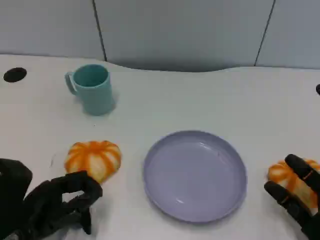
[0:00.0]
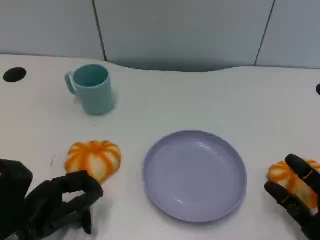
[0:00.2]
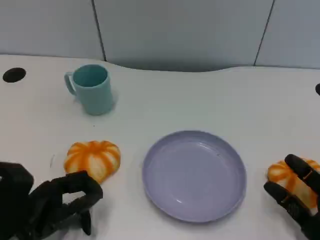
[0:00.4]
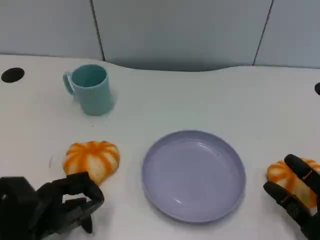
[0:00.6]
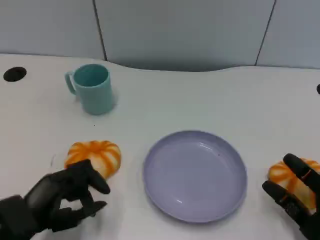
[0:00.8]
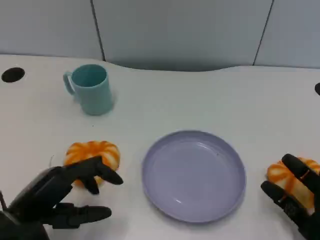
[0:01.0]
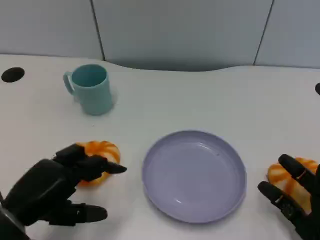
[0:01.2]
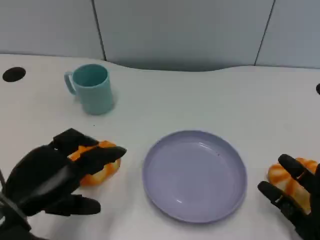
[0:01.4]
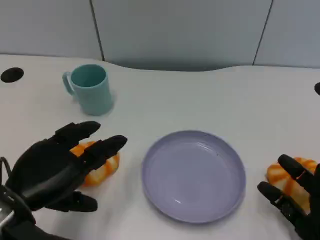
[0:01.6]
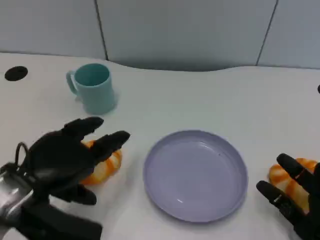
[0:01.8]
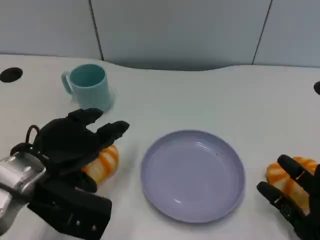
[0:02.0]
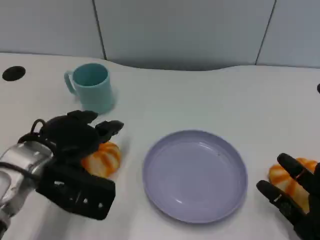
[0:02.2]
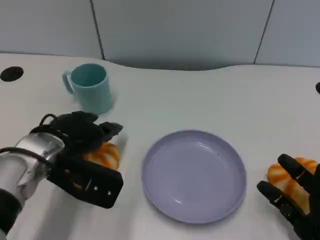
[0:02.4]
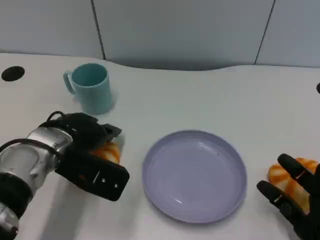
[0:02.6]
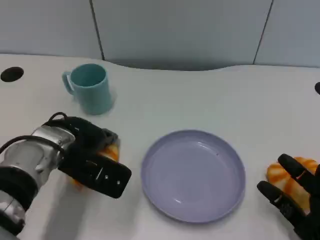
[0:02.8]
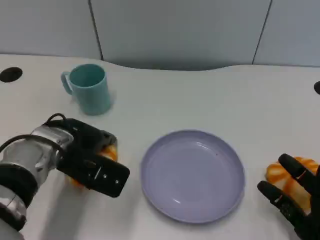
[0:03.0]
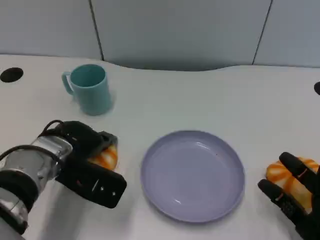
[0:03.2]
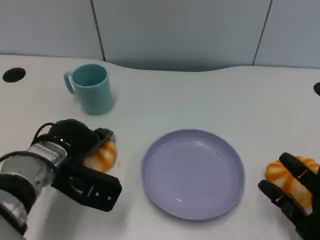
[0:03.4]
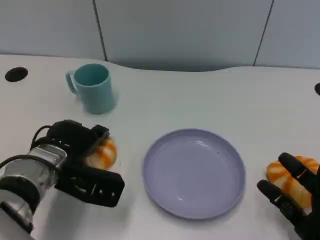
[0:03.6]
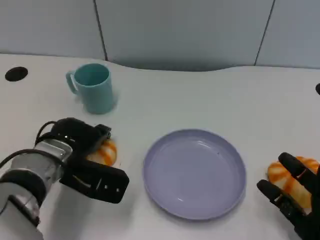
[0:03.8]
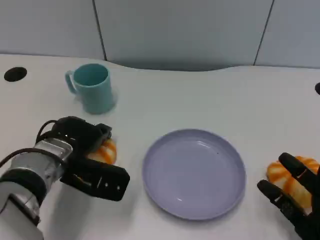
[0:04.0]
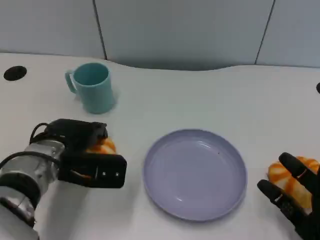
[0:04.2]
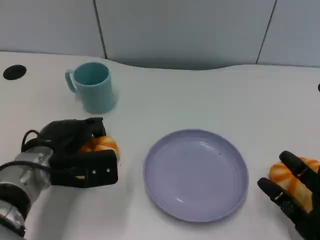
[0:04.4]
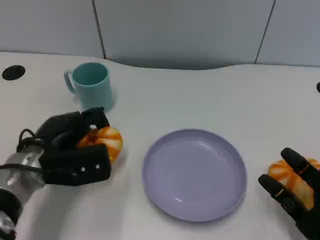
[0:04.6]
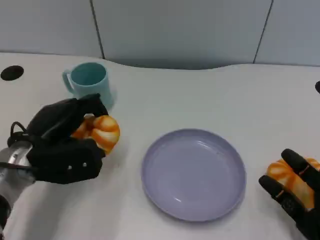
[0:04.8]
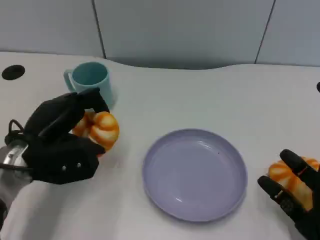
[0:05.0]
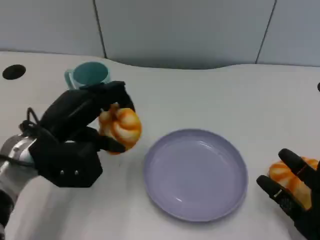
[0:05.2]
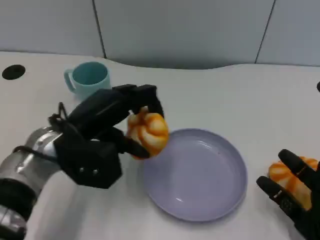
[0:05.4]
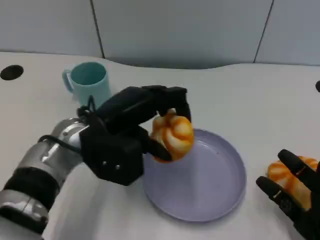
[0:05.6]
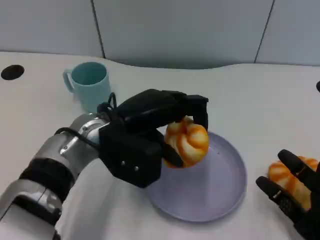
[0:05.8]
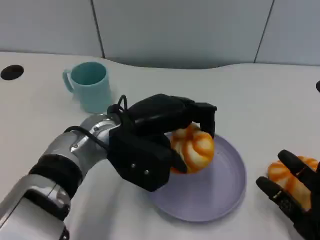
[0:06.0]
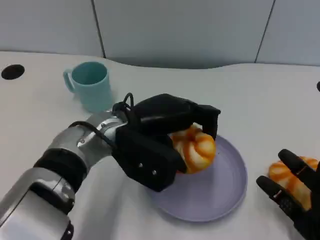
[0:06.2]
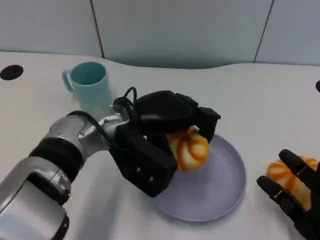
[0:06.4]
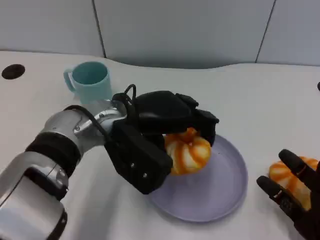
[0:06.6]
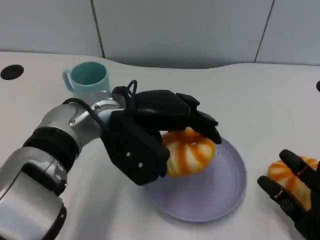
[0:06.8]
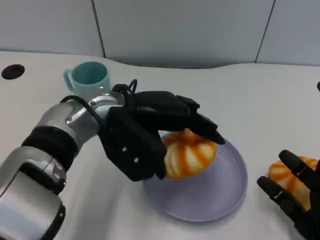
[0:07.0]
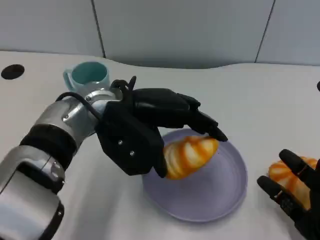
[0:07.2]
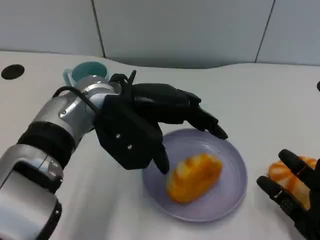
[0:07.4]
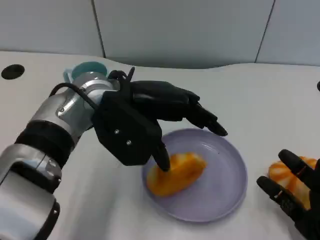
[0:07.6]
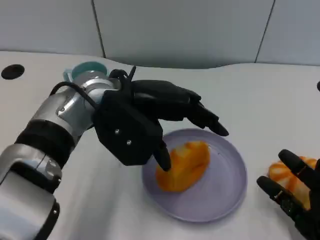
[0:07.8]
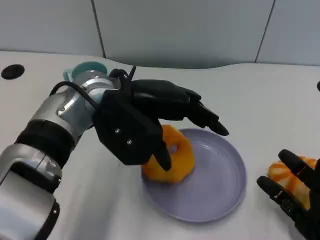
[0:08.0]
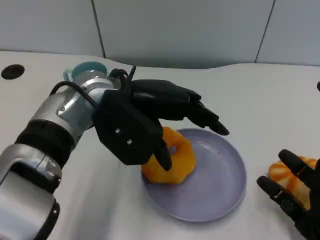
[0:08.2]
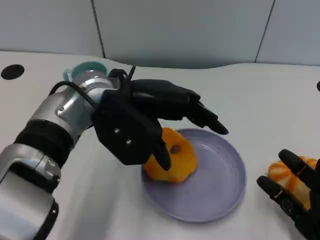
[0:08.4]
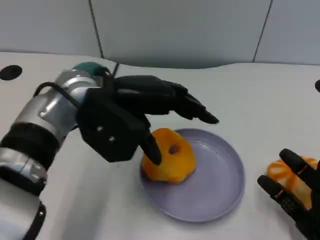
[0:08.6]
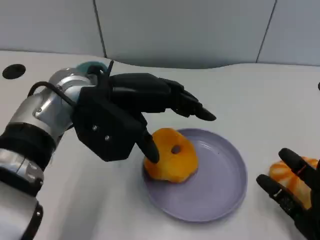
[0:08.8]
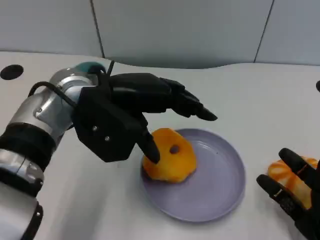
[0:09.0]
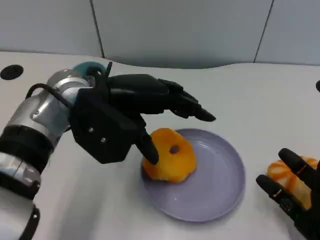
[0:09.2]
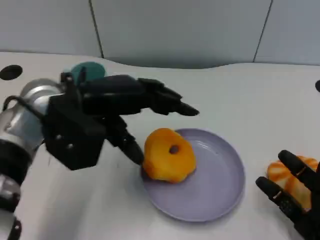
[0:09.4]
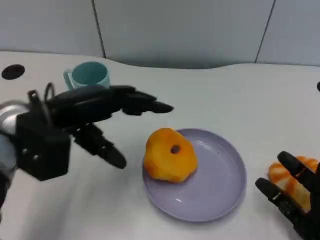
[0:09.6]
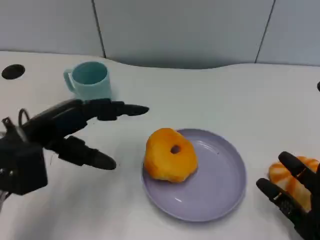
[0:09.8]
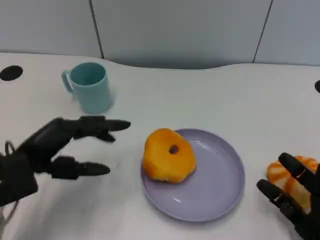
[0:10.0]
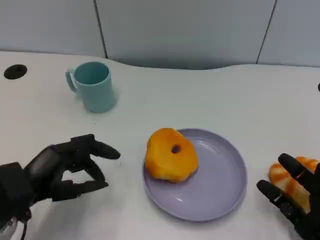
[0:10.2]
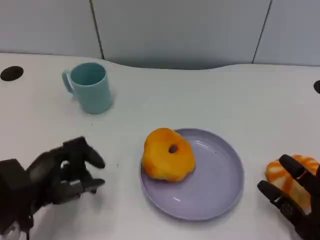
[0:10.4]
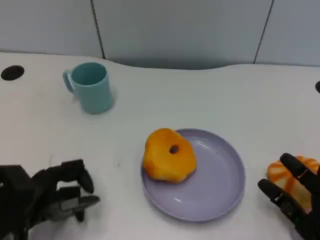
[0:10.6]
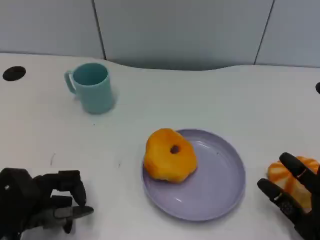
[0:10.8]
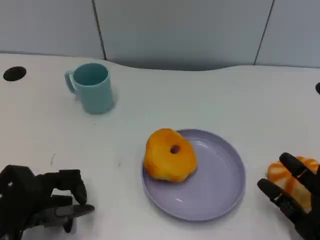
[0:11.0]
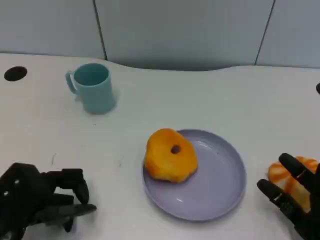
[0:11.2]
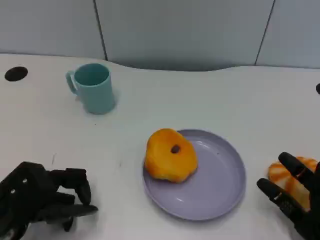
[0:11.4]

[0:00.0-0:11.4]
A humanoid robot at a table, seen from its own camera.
Task of the whole recording: Grasp the bread from the table and place it into the plate.
0.0 to 1.4 s: The left hand moves upward, some 5 cm.
1.4 to 2.8 s: The left hand is displaced forward and to the right by some 15 cm.
4.2 to 5.6 s: The left hand travels upward and to the right by roughly 10 cm.
5.6 to 7.2 s: The left hand ends up some 5 cm from where it was.
8.6 to 10.0 s: The left hand heads to the left, downward and backward, covering some 20 cm.

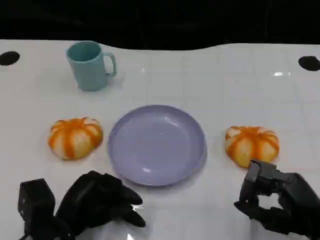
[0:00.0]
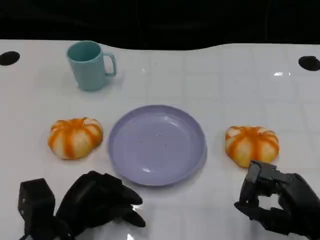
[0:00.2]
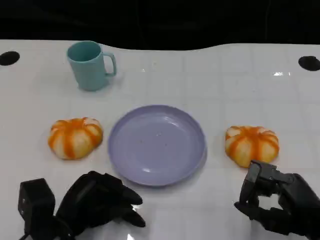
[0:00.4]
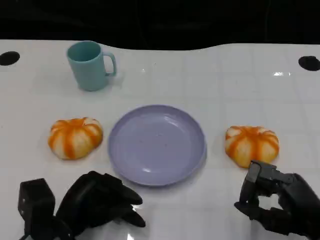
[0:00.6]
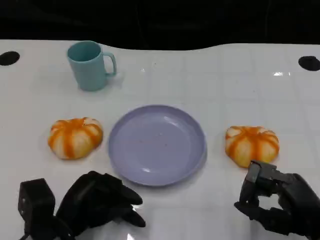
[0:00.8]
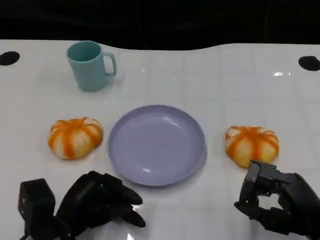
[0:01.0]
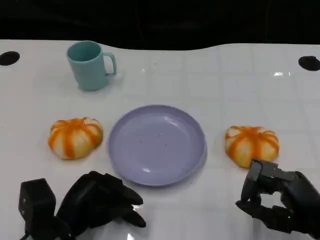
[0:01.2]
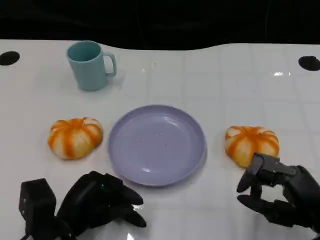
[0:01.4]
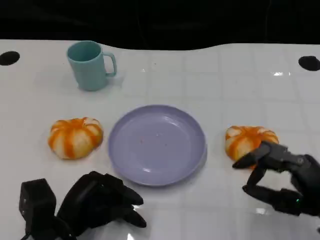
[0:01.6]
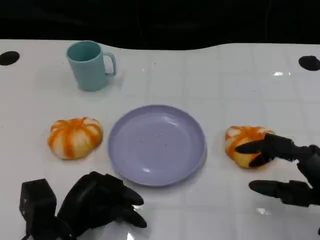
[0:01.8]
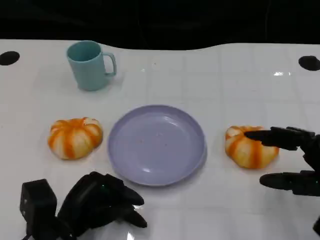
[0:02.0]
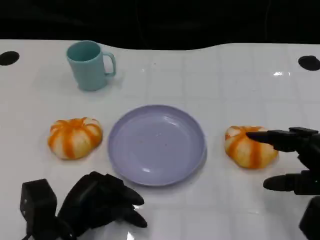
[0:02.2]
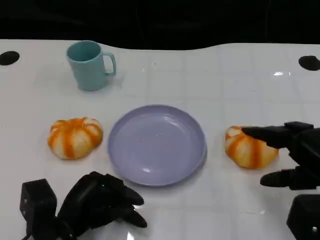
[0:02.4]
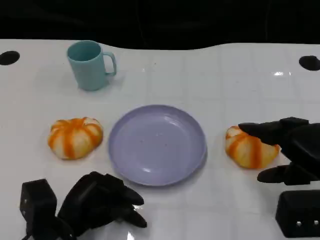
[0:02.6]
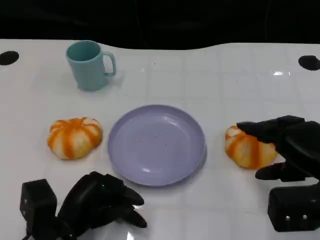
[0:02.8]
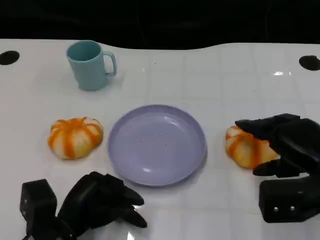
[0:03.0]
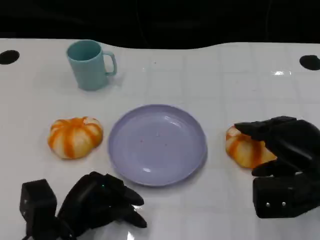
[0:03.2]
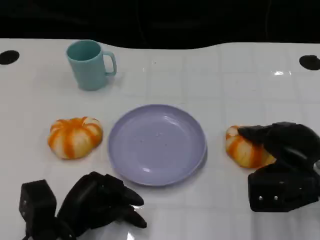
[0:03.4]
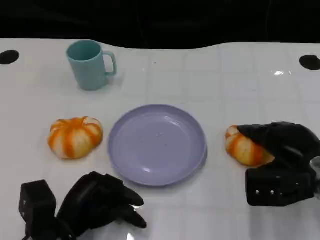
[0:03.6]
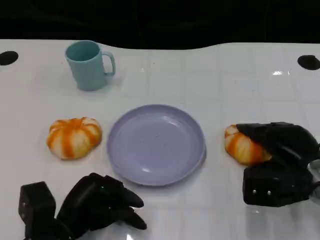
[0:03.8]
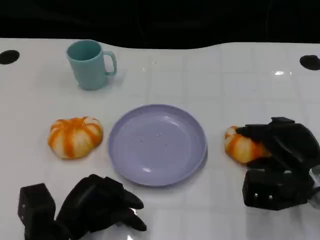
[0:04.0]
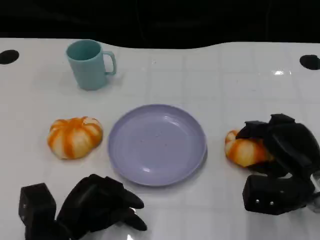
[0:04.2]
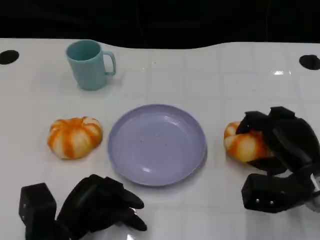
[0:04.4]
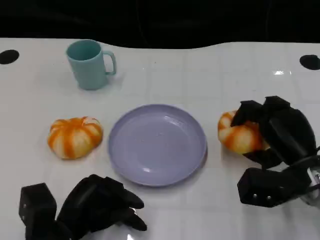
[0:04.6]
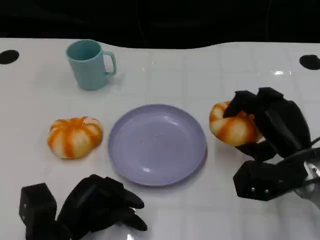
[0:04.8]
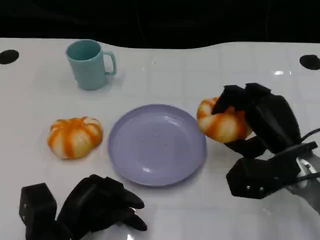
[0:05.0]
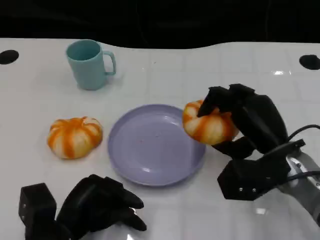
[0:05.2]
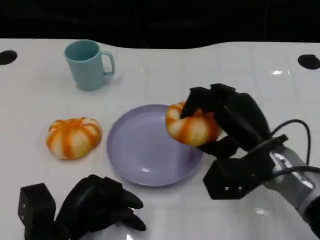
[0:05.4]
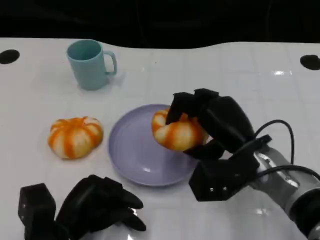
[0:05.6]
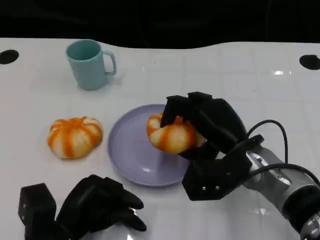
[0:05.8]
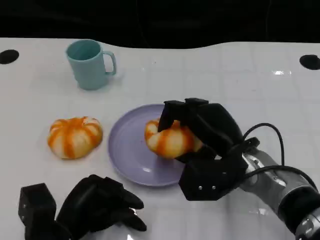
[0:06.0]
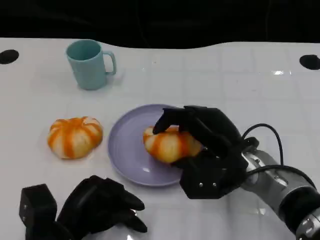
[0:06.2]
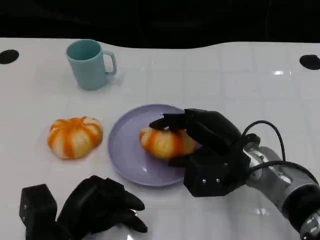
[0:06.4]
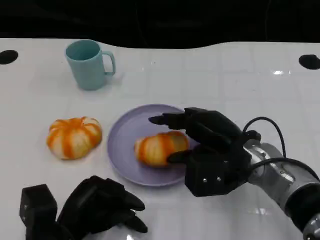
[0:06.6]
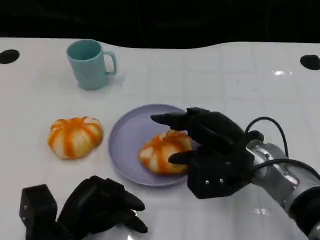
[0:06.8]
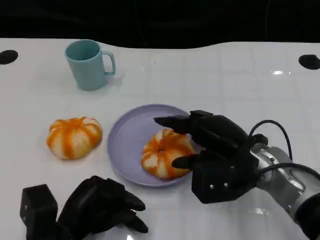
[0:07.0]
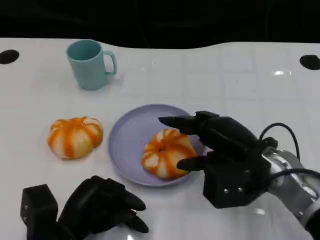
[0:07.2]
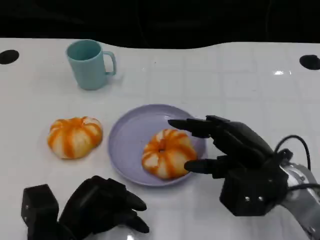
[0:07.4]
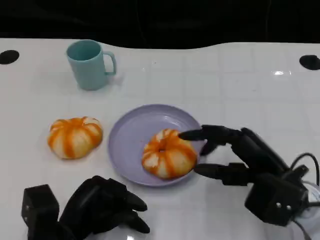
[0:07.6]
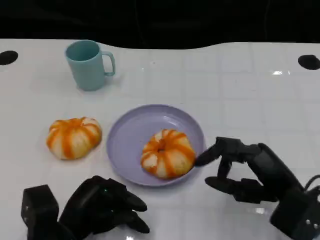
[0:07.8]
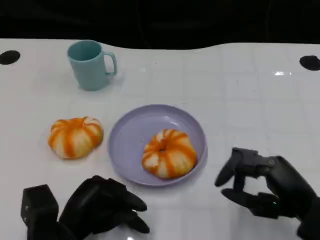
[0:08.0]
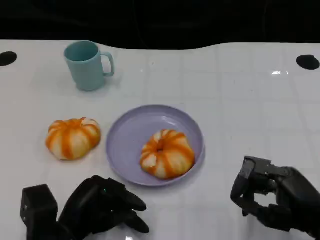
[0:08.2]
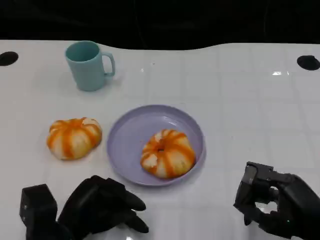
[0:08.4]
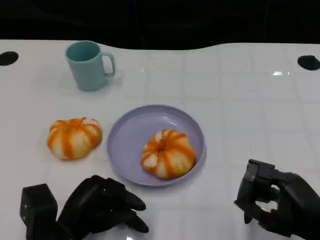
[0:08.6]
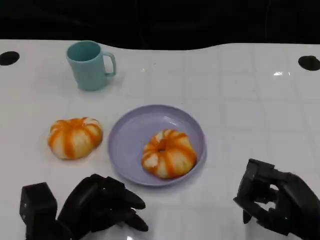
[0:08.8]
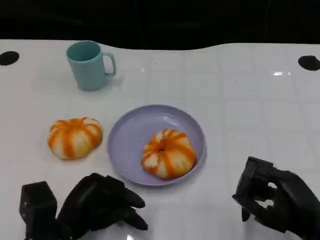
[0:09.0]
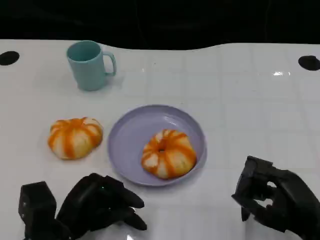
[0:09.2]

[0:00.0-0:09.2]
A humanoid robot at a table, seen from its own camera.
Task of the whole recording: Grasp the bread from the table and place it into the plate.
0.0 to 1.6 s: The hands move only a little.
1.6 to 3.0 s: The right hand travels forward by approximately 5 cm.
3.0 to 4.6 s: The right hand moves roughly 5 cm.
4.6 to 6.2 s: The right hand travels to the left by roughly 10 cm.
6.2 to 7.6 s: The right hand travels to the right and backward by some 10 cm.
7.6 to 9.2 s: The right hand shifts approximately 5 cm backward.

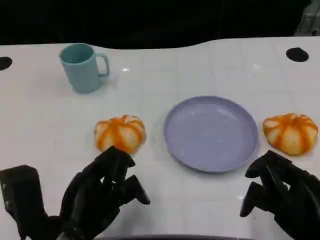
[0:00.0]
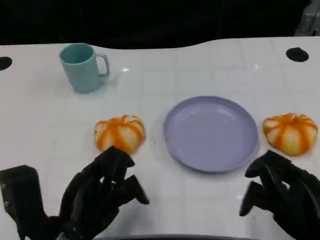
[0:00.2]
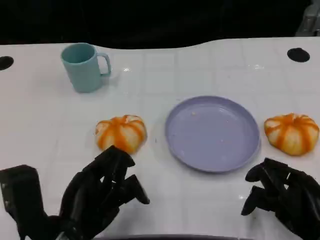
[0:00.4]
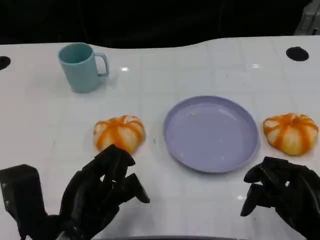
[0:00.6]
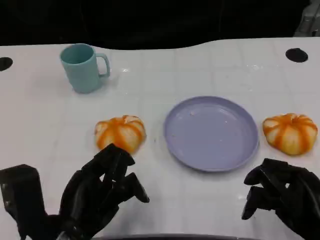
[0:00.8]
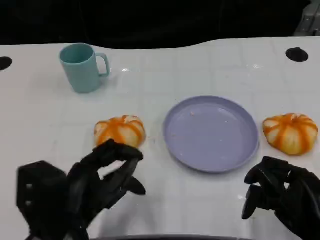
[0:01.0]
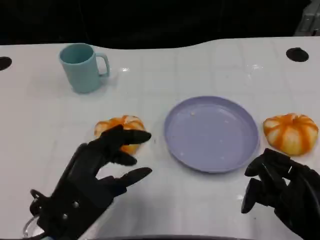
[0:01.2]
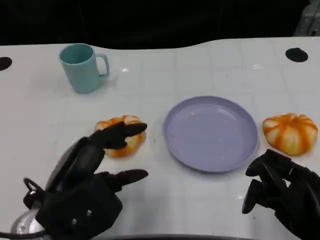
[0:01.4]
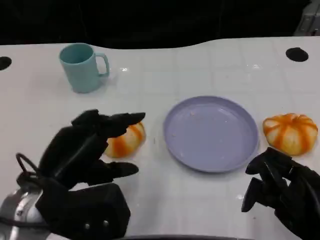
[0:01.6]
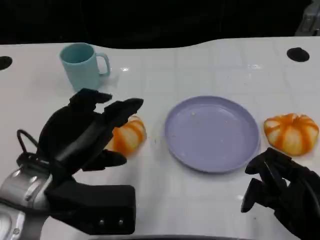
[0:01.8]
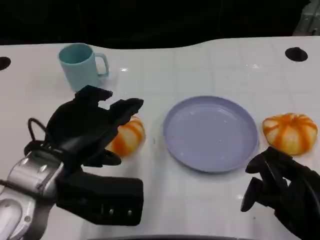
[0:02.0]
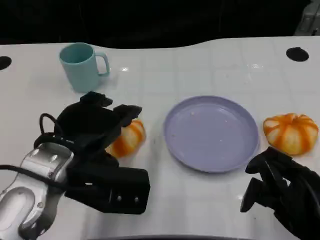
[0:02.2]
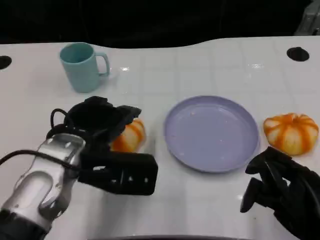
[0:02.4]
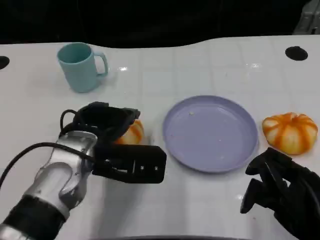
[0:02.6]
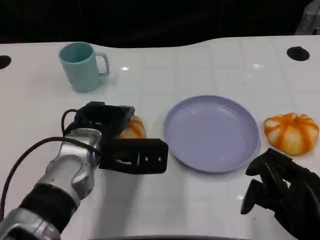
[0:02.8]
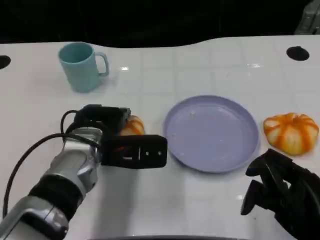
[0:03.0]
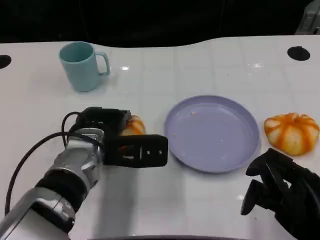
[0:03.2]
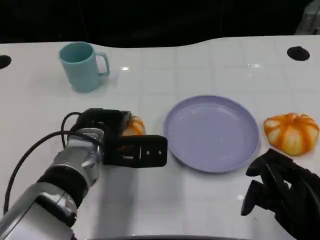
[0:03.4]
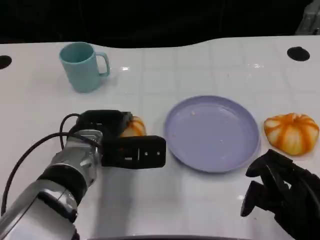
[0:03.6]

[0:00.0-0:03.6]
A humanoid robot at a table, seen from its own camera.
Task of the whole recording: Grasp the bread from the table and place it into the plate.
0.0 to 1.8 s: The left hand is displaced upward by about 5 cm.
1.8 to 3.6 s: The left hand goes about 15 cm forward, downward and to the right.
